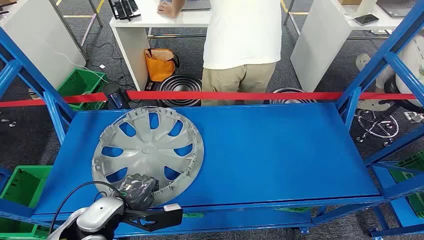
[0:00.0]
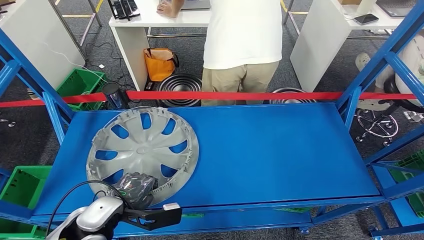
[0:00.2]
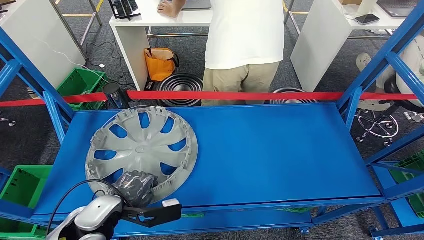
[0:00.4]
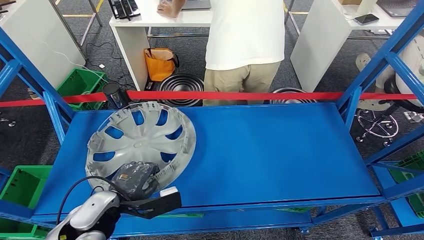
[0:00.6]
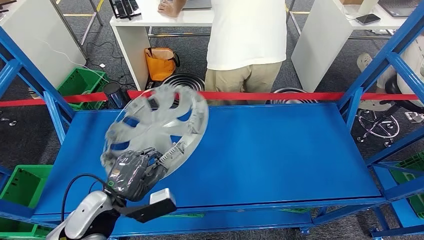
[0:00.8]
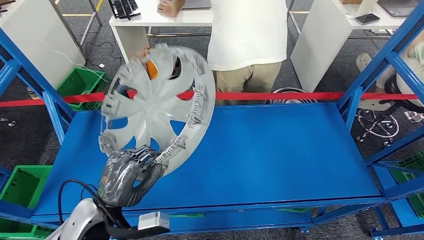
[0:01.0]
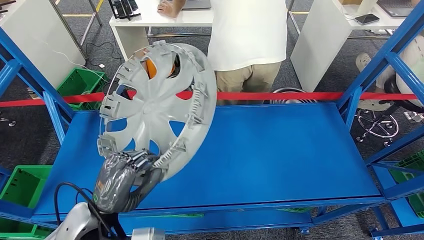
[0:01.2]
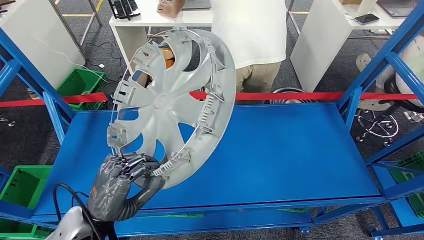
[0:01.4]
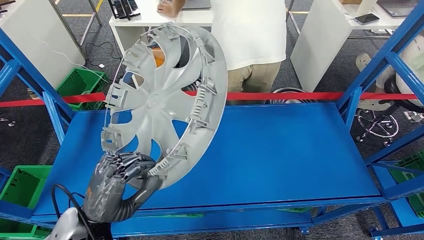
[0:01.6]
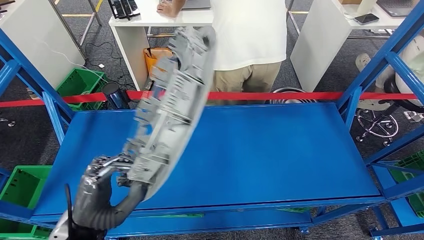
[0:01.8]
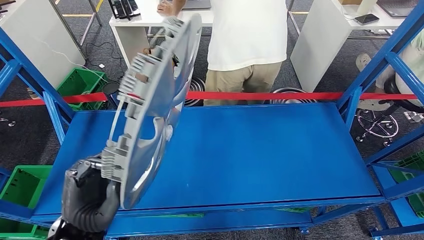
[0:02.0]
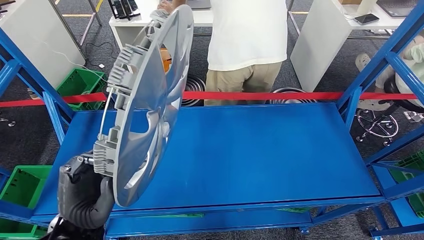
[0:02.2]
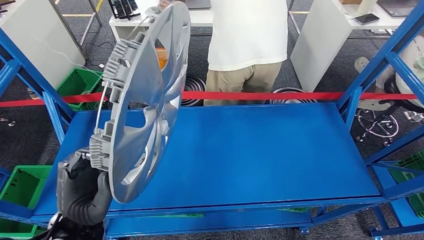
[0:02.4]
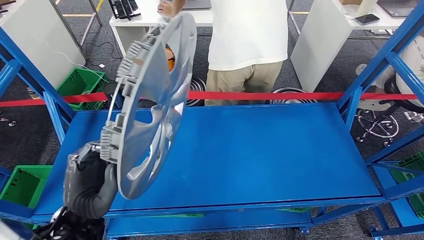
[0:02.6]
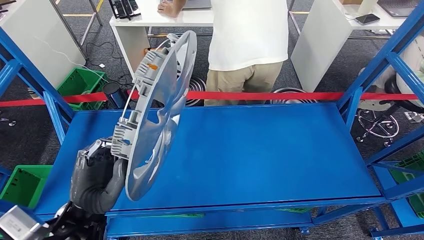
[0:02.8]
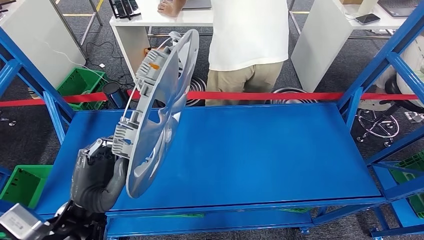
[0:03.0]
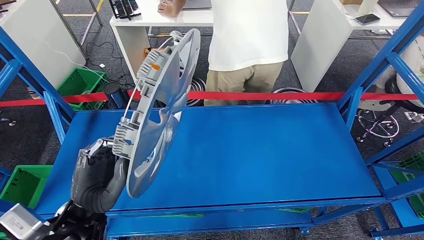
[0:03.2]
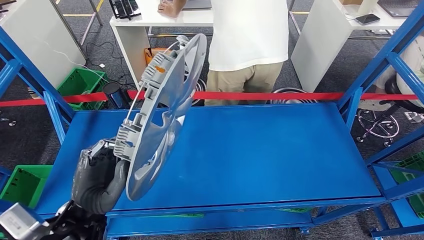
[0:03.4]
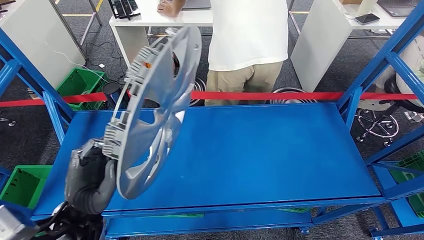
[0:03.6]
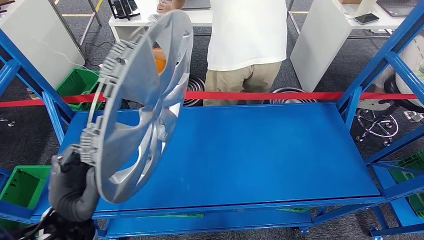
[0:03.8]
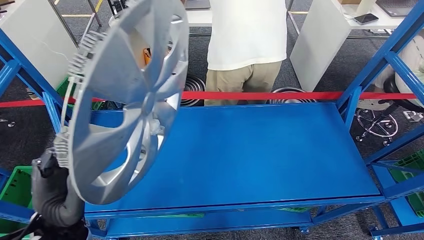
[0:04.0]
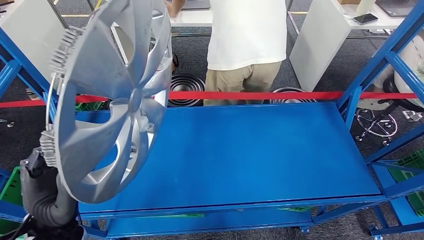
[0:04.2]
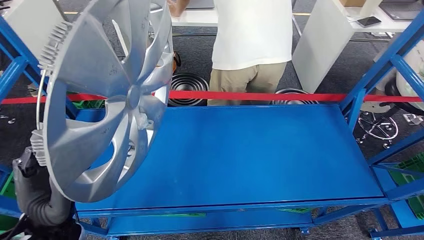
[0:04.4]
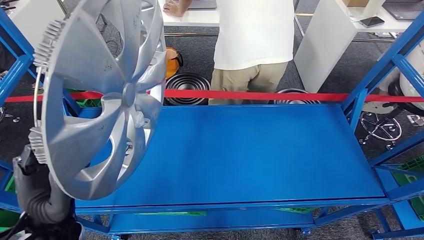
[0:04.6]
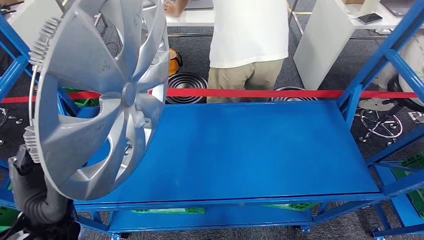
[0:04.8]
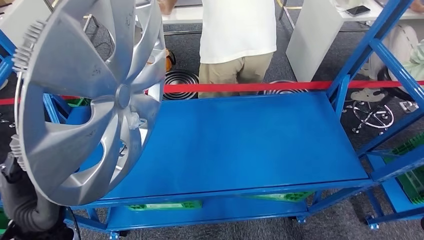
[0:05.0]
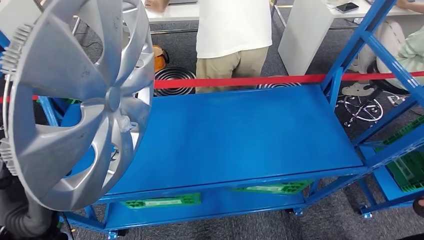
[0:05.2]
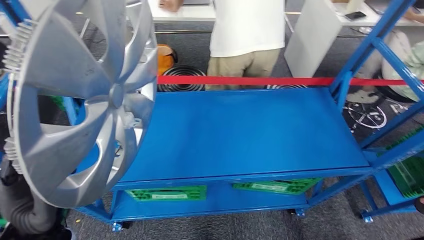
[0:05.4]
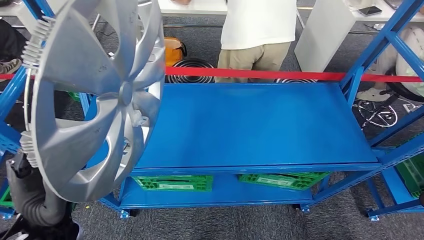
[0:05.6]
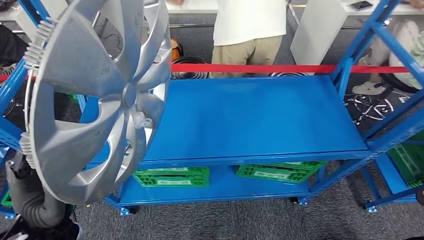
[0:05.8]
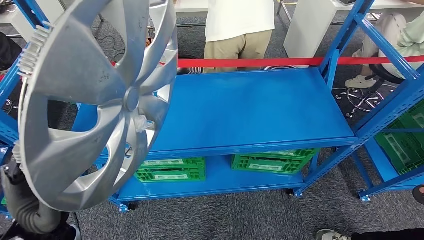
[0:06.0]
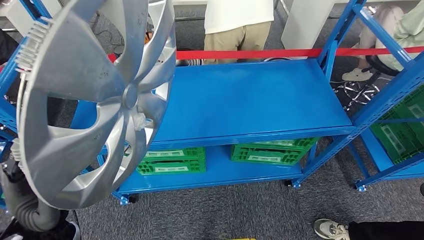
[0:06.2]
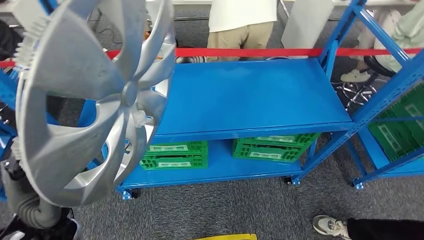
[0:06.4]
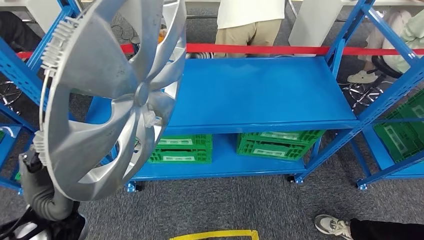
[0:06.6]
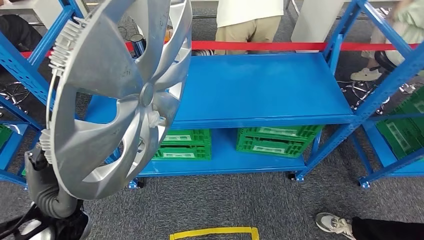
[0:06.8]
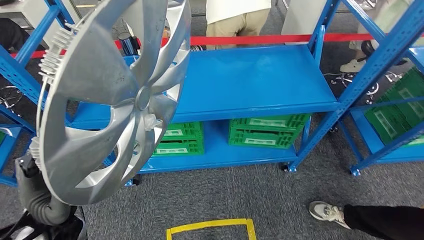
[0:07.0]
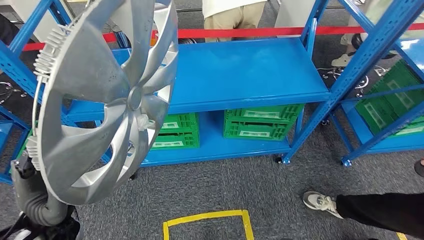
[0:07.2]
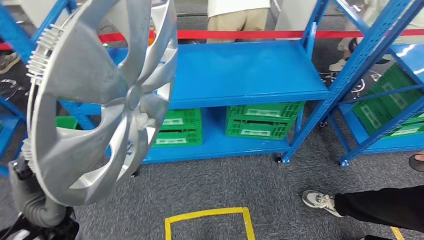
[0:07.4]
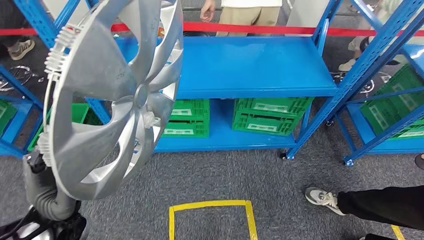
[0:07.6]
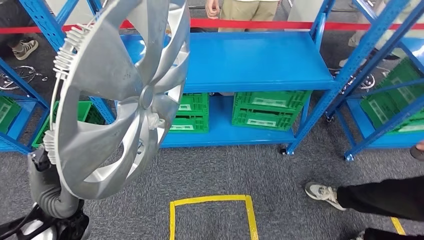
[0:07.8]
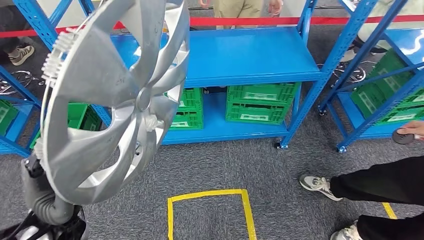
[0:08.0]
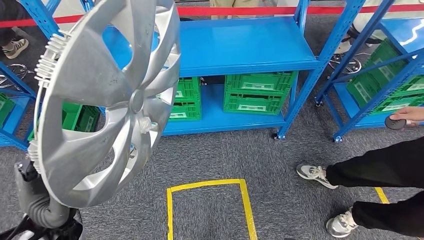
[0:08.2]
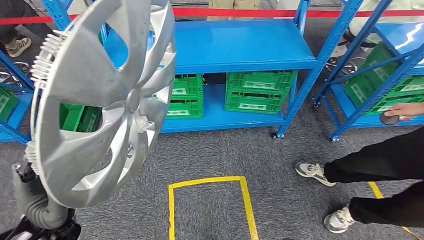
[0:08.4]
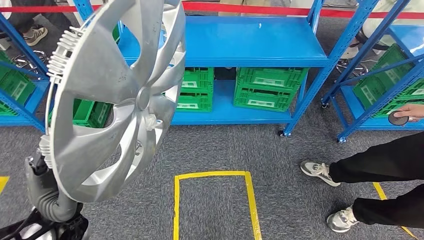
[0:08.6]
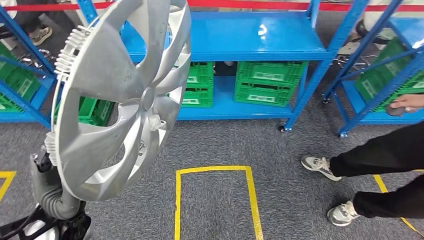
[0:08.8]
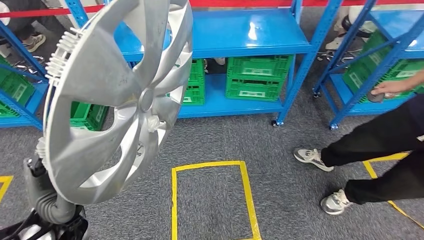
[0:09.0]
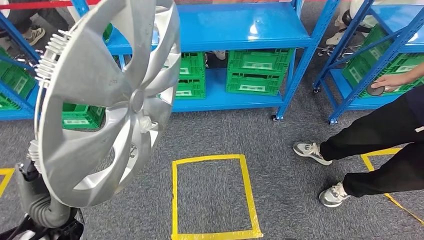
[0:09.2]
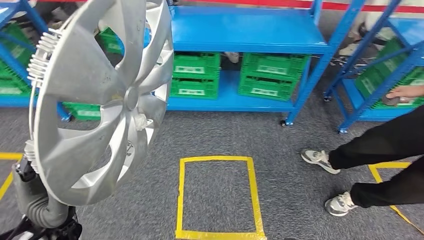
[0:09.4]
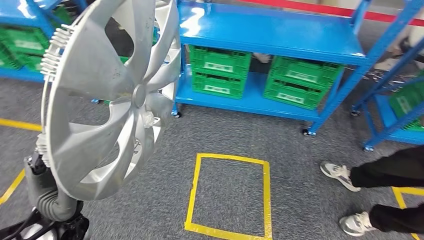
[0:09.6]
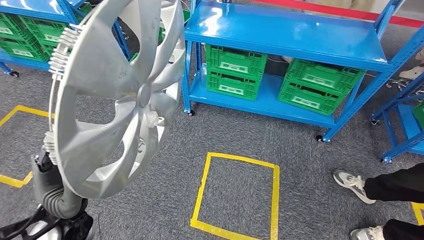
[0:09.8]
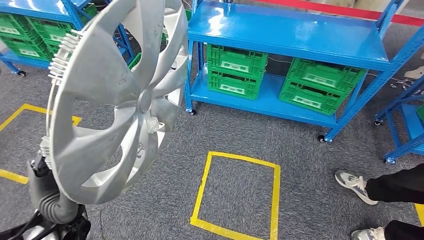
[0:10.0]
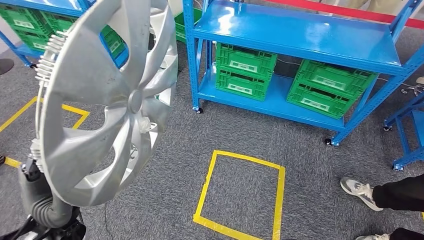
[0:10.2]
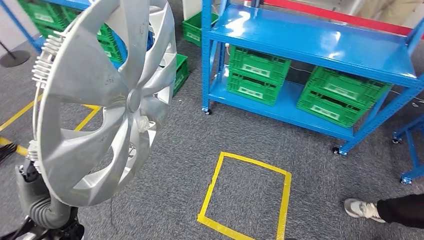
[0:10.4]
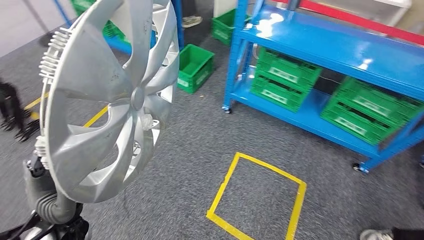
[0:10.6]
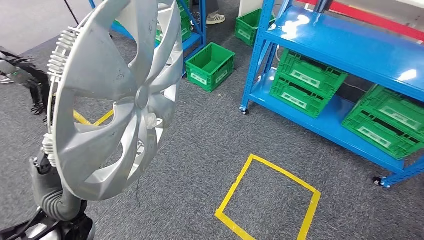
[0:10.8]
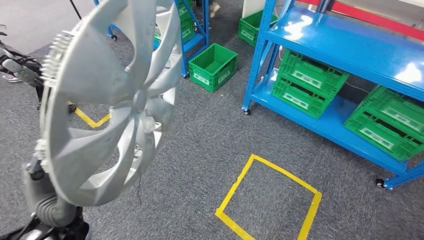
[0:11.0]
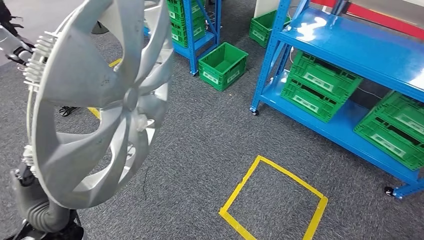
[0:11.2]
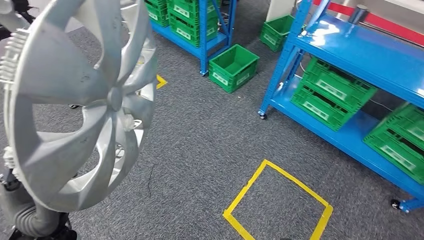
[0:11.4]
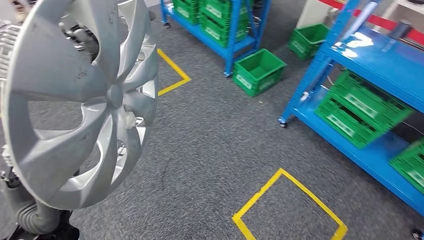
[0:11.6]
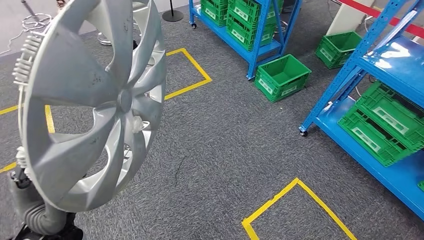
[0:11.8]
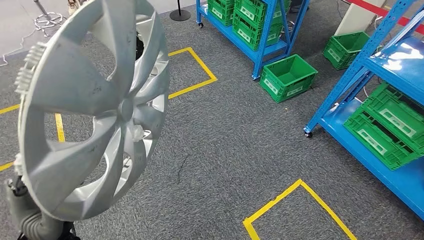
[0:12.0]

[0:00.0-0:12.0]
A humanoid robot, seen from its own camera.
Step, 0:00.0 to 0:02.2: Take small components from the rack.

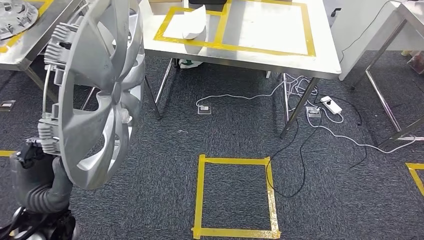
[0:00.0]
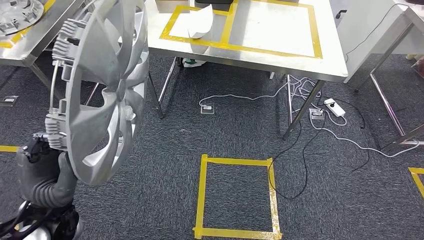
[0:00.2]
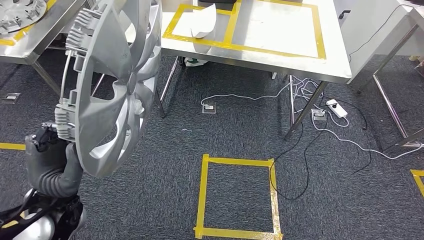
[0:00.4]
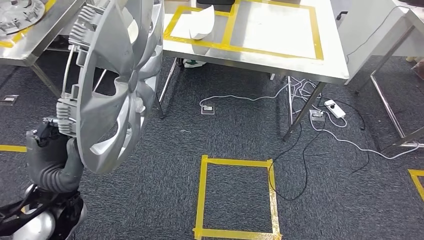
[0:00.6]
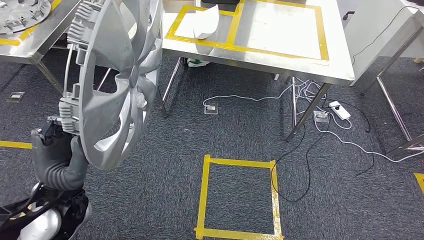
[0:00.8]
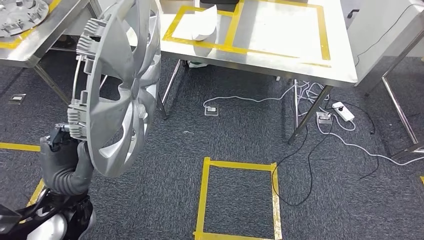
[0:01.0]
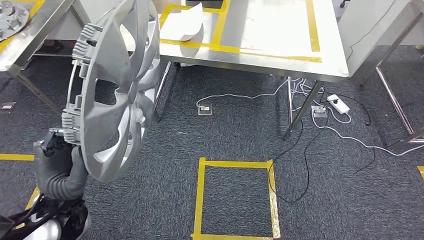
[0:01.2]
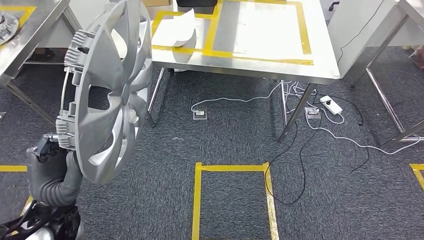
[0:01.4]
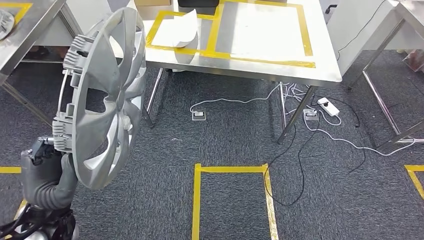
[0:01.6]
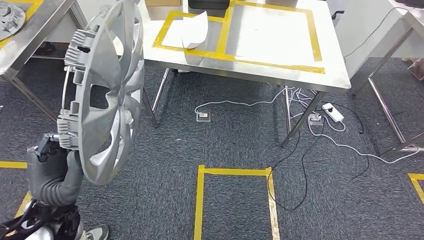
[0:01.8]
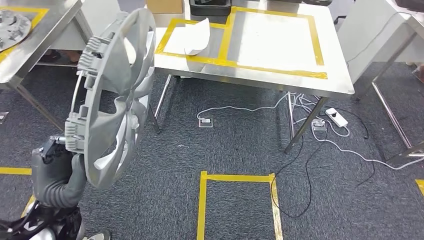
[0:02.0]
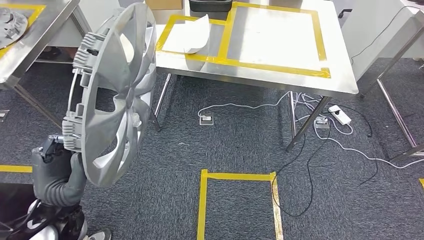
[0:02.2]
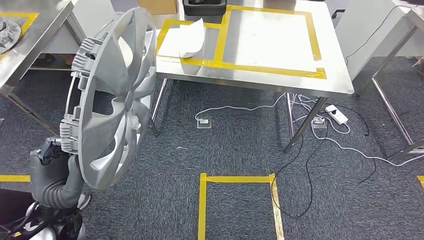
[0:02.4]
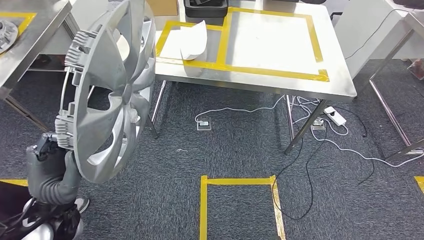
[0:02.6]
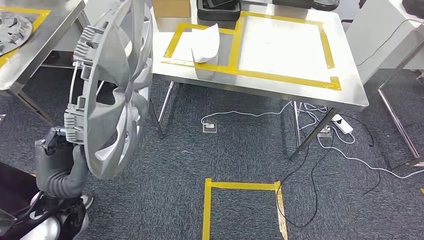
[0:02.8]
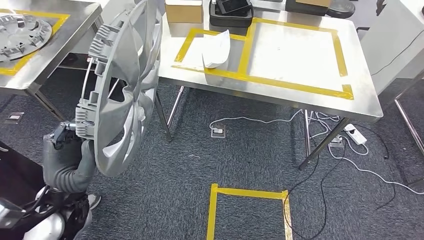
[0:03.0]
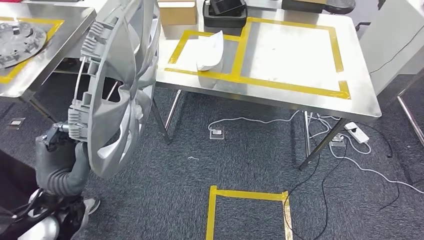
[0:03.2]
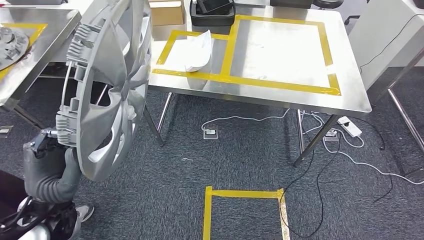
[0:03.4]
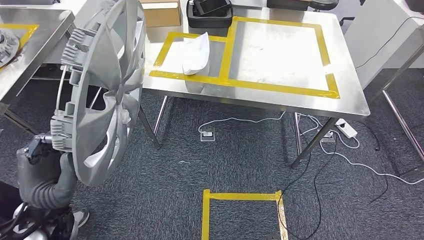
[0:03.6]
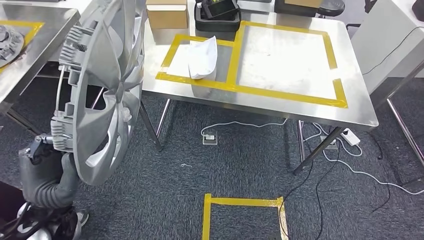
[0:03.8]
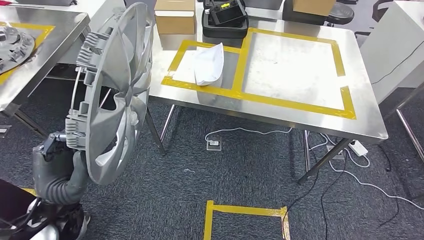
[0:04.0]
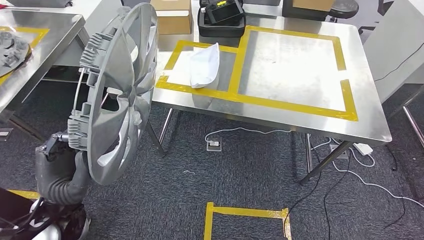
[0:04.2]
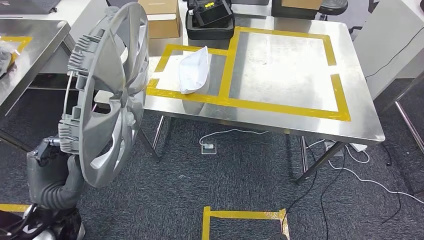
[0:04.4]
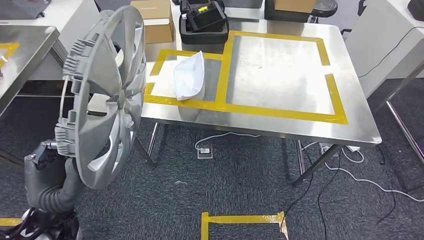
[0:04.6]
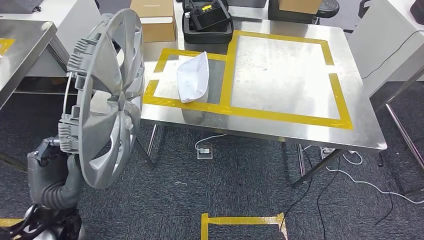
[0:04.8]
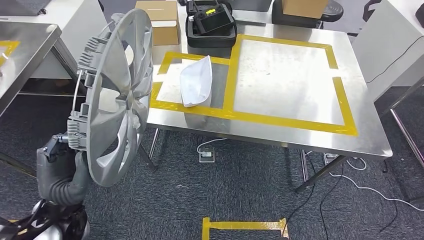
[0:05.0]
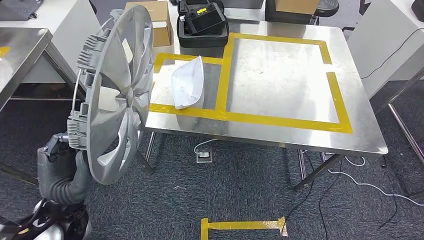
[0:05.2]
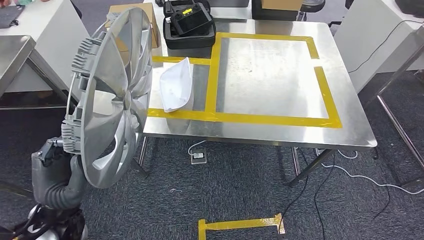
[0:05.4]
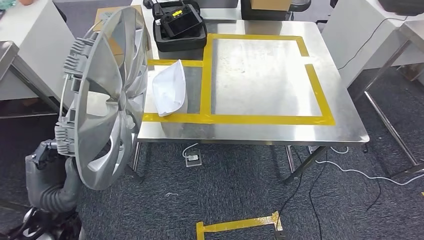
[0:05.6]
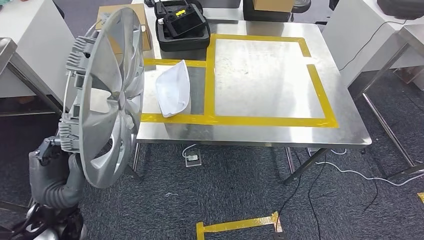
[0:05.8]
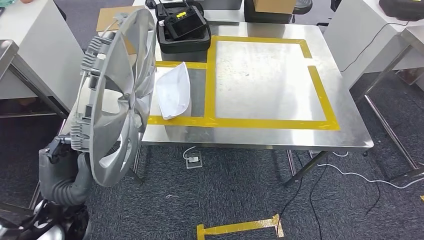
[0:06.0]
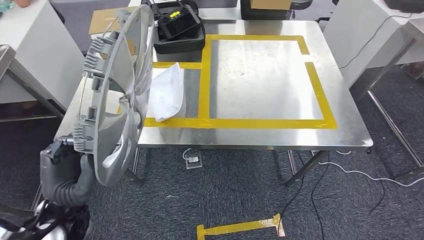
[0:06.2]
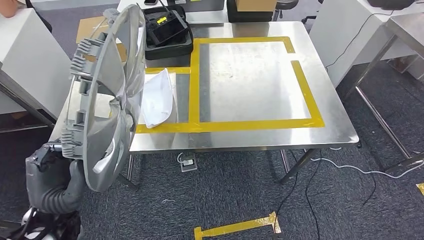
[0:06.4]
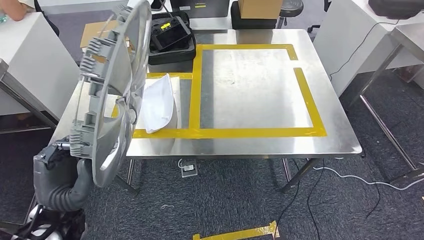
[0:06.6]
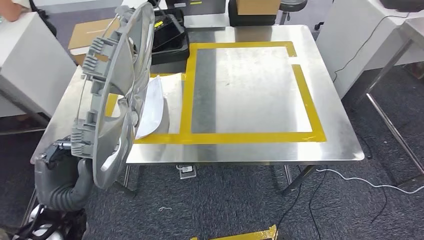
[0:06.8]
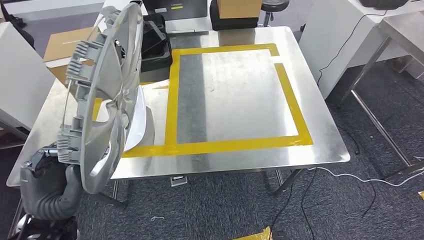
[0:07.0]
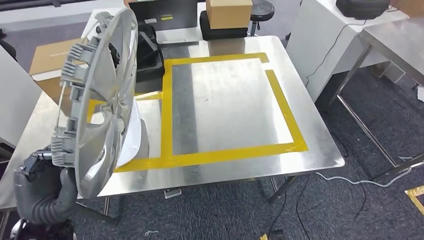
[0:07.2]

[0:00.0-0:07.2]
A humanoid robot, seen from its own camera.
Step, 0:00.0 to 0:04.2: Move the small parts to the workbench.
